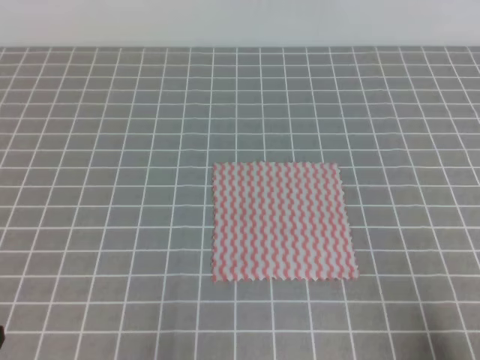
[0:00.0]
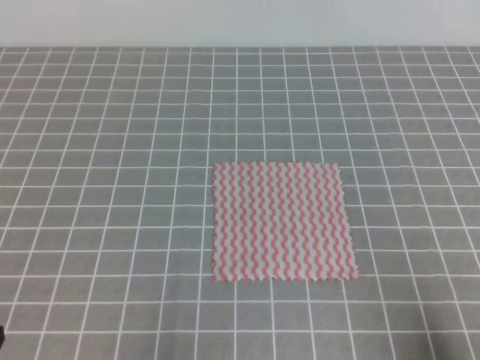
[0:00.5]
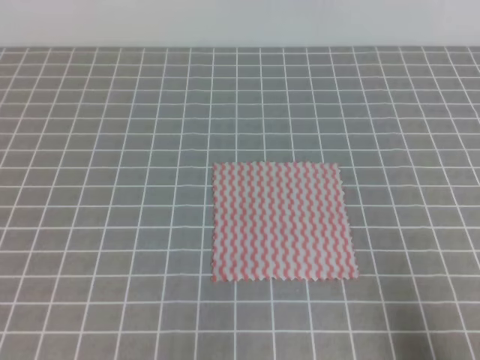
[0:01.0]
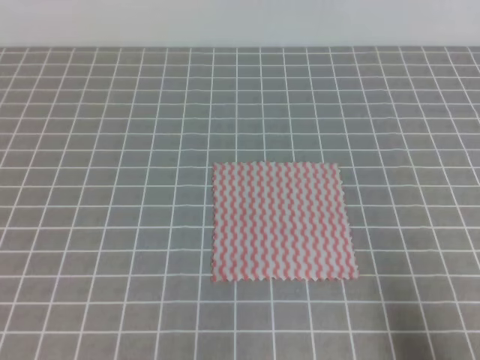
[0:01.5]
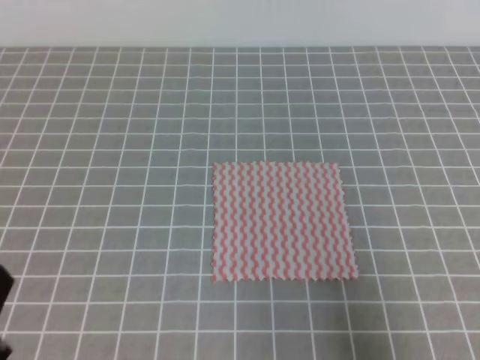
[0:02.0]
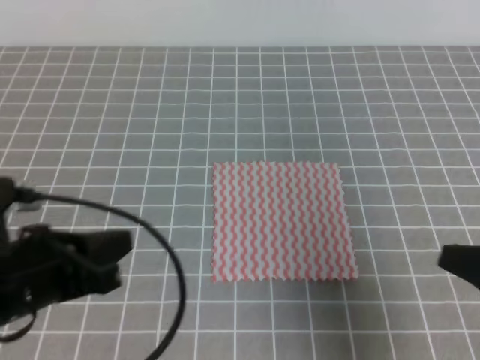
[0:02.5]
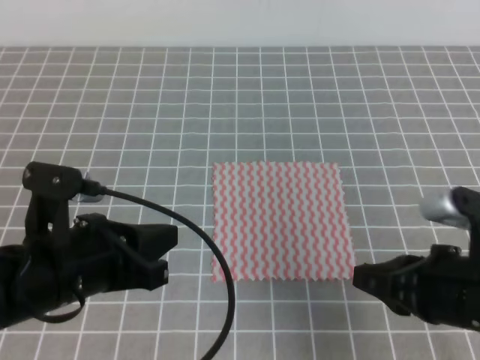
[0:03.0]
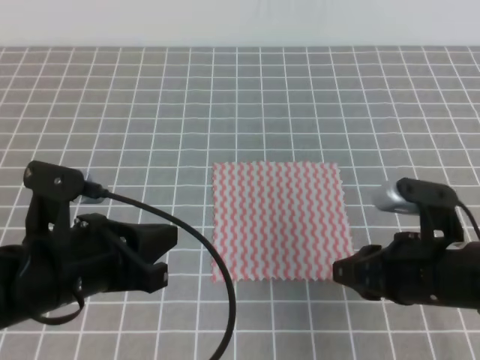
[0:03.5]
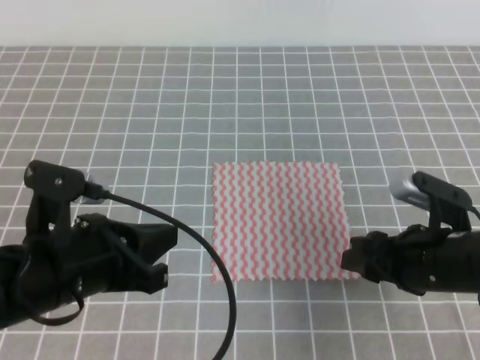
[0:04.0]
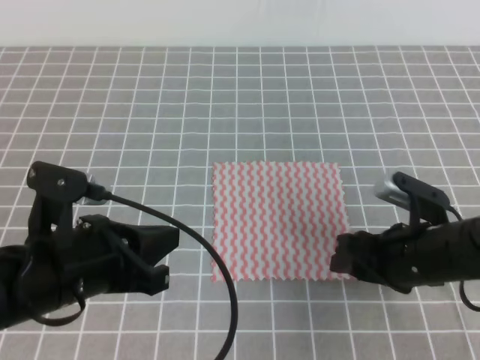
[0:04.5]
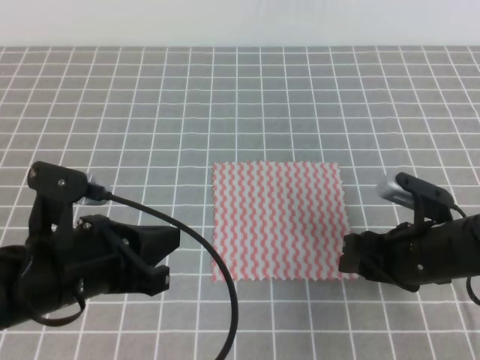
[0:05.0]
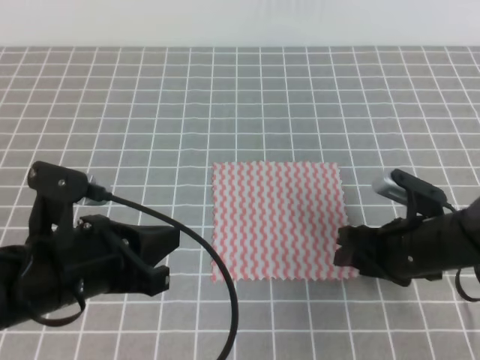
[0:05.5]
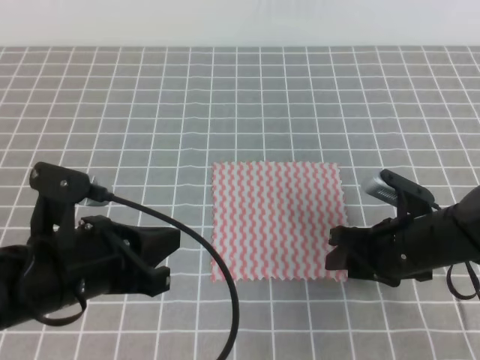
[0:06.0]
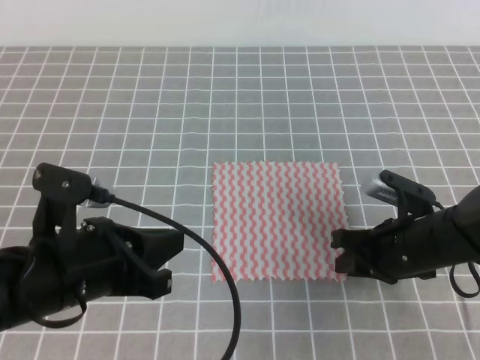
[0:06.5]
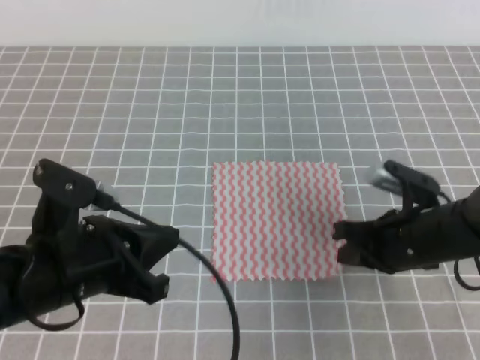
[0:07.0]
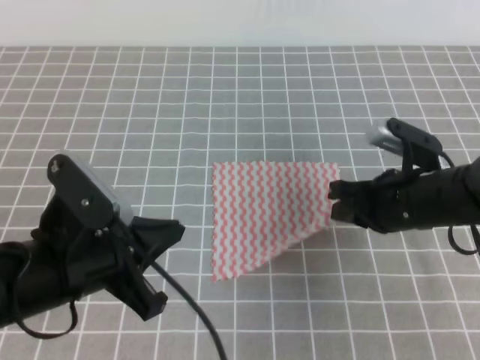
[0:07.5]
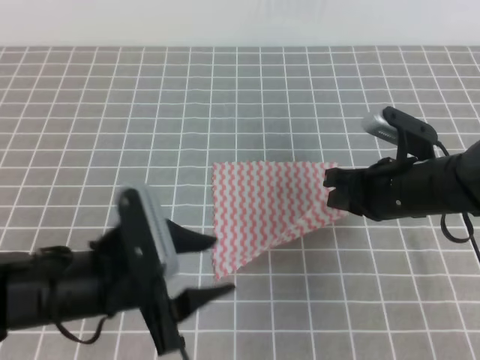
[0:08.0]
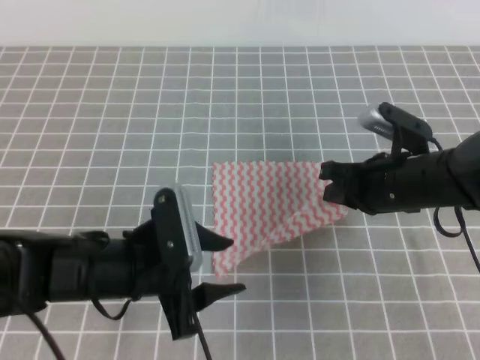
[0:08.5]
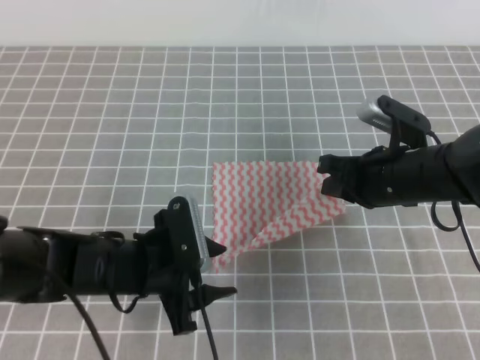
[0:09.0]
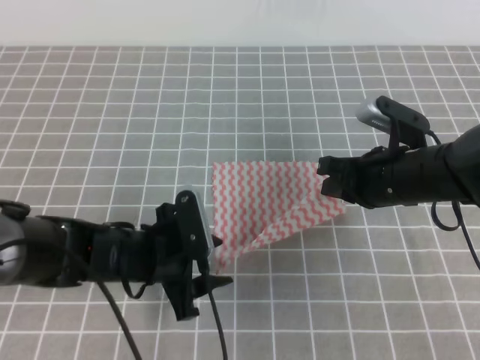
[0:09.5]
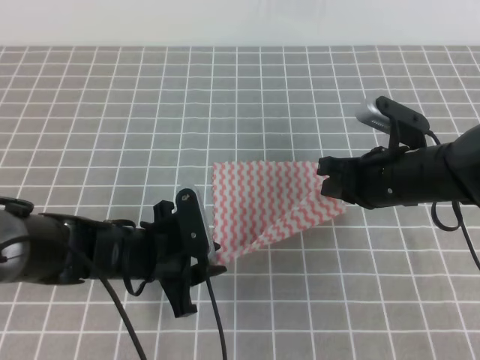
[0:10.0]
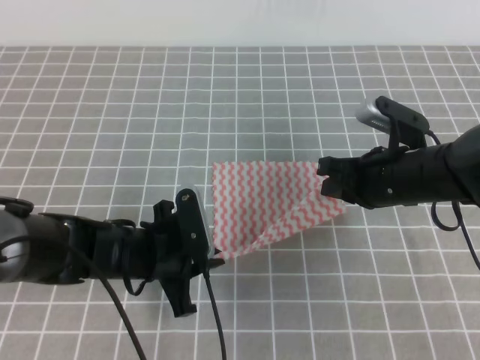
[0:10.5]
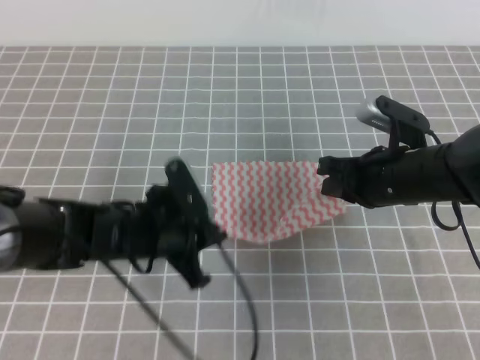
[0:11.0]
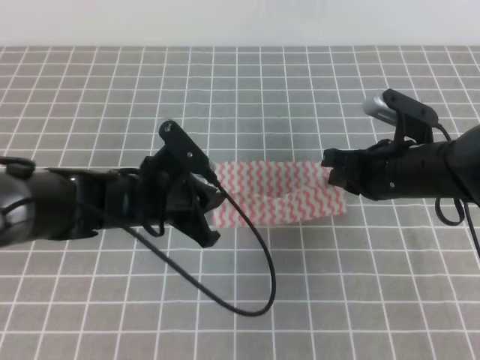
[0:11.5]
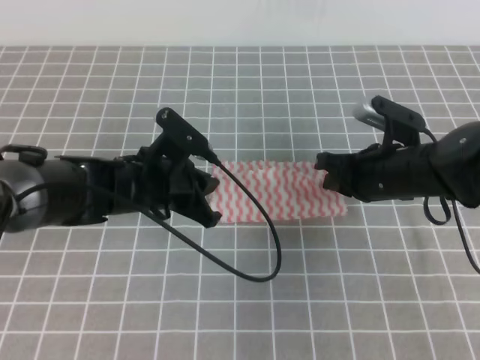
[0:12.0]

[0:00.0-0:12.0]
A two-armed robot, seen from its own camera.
0:00.0 to 0:02.0: The grippers both shift upward by roughly 5 cm.
0:02.0 to 0:04.0: The right gripper is displaced forward, to the left and downward by about 20 cm, and opens its fingers, while the left gripper shifts some 15 cm forward and to the right.
0:04.0 to 0:06.0: The right gripper ends up some 5 cm from where it was.
0:06.0 to 0:08.0: The left gripper opens, while the right gripper moves upward, roughly 5 cm, and closes up.
0:08.0 to 0:10.0: The left gripper is displaced forward and downward by about 10 cm, and closes its fingers.
0:10.0 to 0:12.0: The left gripper heads forward, covering approximately 5 cm, and closes its fingers.

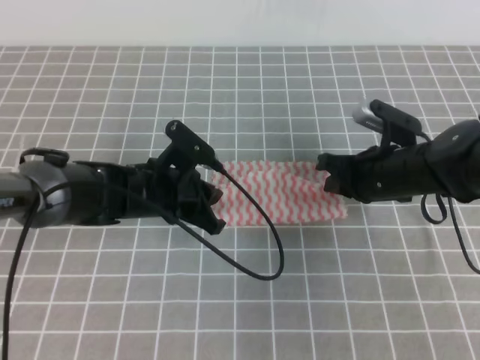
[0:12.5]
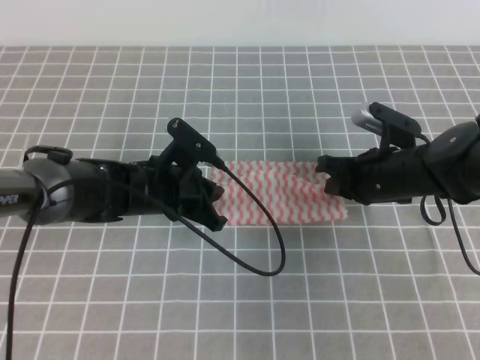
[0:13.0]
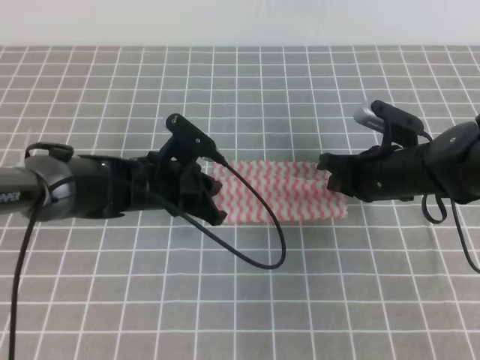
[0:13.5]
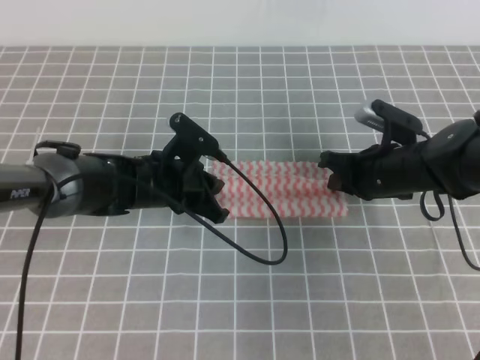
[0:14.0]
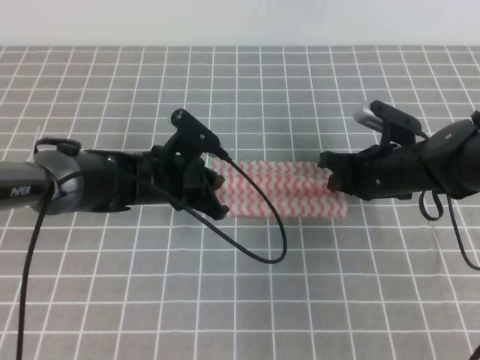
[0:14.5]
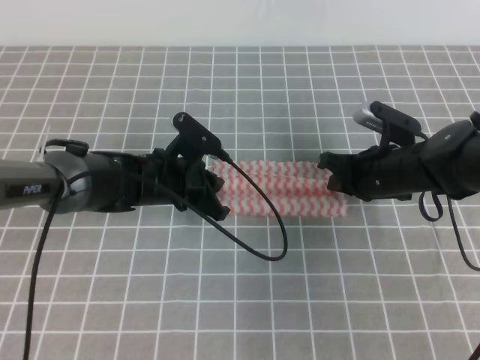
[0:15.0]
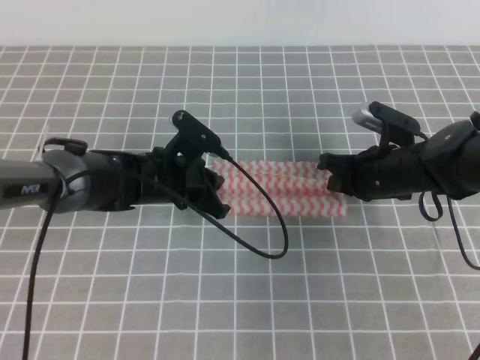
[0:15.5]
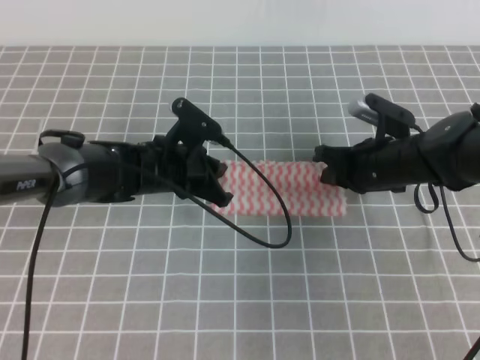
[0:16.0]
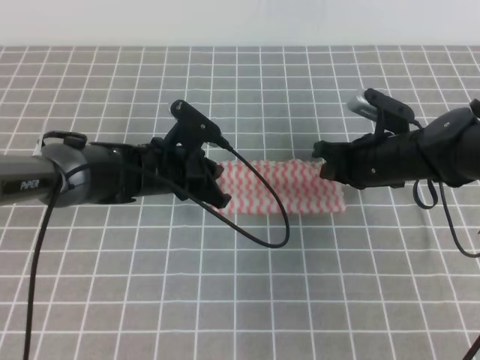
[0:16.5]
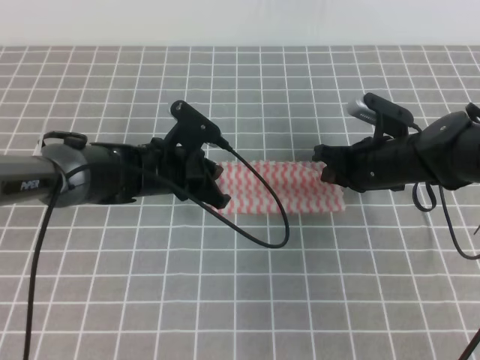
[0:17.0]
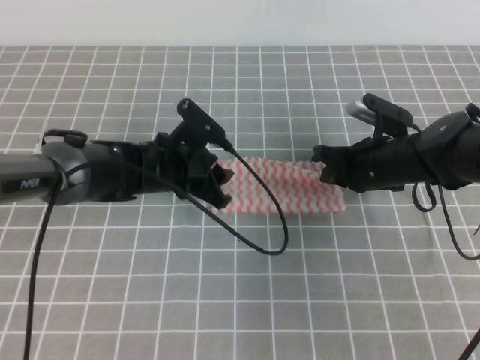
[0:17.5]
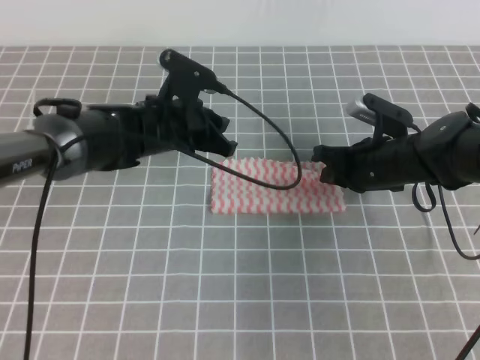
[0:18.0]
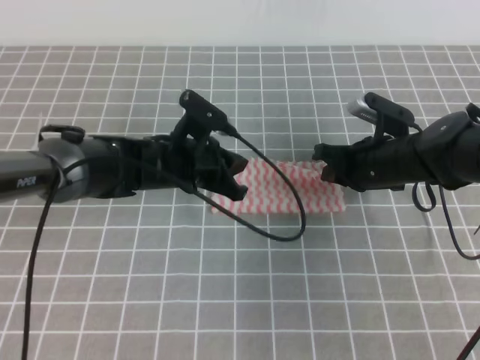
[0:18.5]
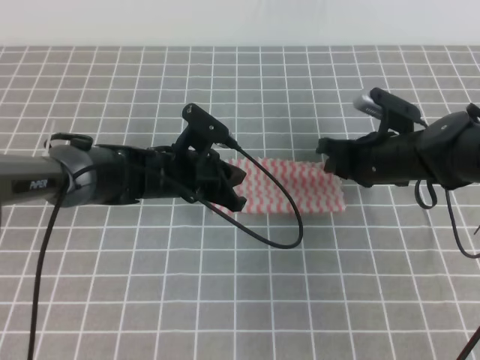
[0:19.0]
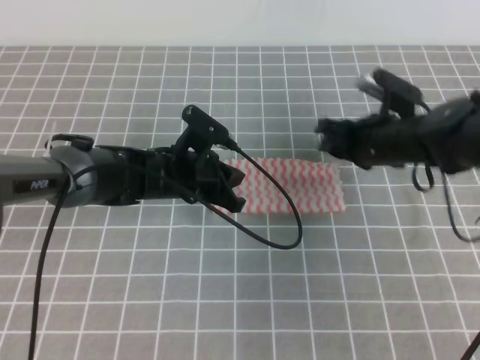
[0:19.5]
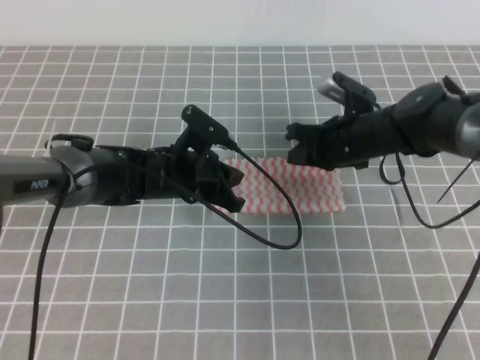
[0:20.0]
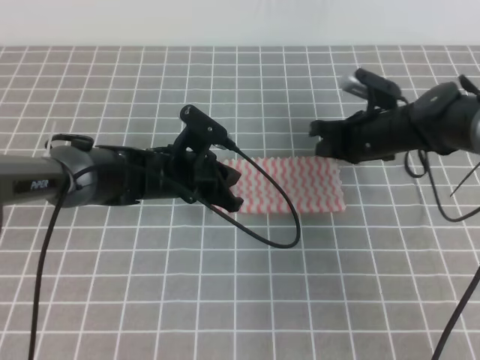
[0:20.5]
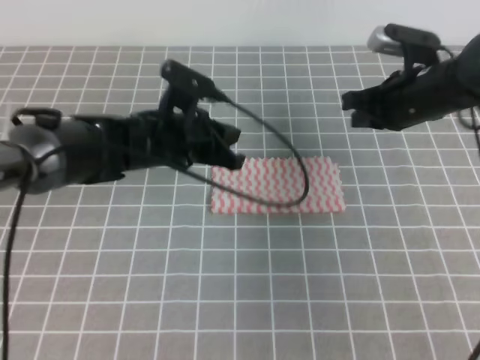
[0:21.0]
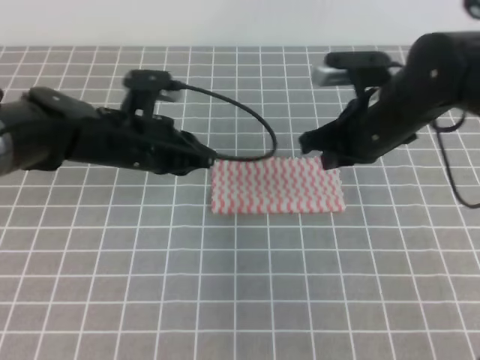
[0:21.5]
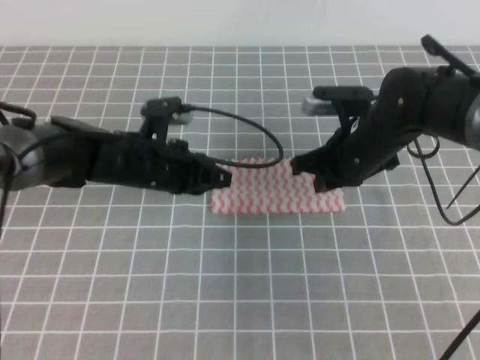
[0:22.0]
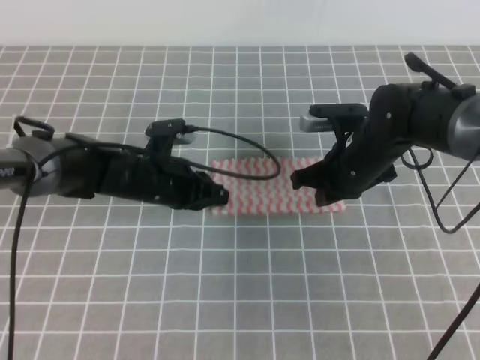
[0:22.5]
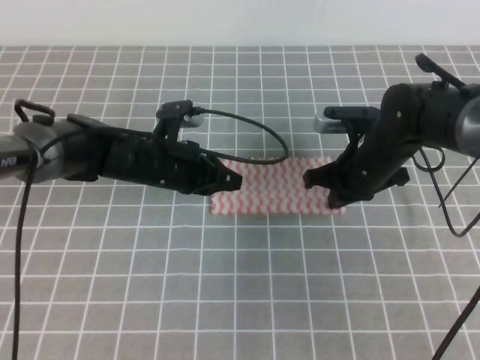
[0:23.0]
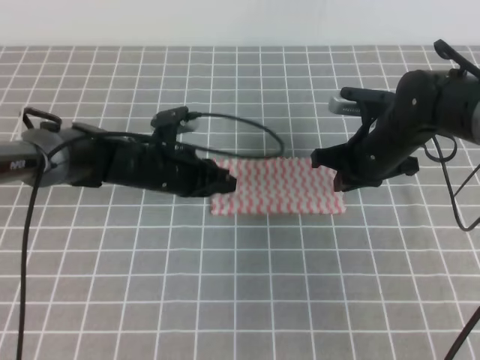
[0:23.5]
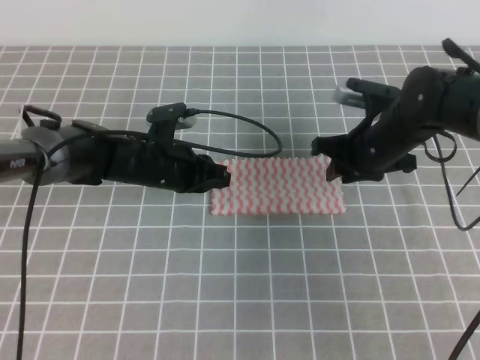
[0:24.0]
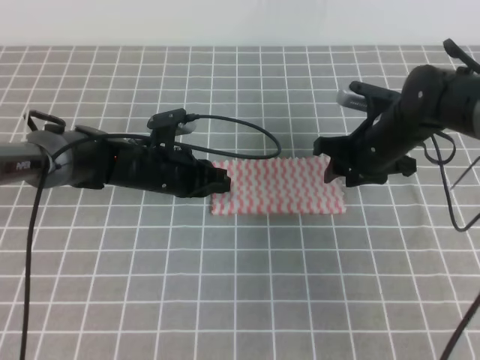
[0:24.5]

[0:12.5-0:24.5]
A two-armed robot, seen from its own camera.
0:12.5 to 0:14.5: The grippers stay close to where they were, moving slightly.
0:14.5 to 0:16.5: Neither gripper changes place.
0:16.5 to 0:18.5: The left gripper opens, then closes again.
0:18.5 to 0:20.5: The right gripper shifts approximately 5 cm forward, and opens, then closes once more.
0:20.5 to 0:22.5: The right gripper is displaced backward by about 5 cm, and reaches about 10 cm upward, then returns.
0:22.5 to 0:24.5: The right gripper opens its fingers.

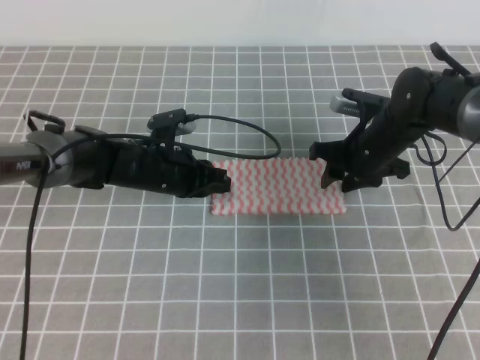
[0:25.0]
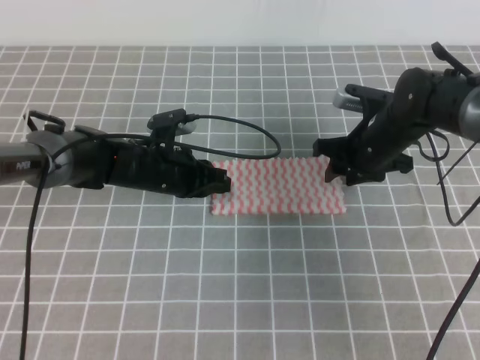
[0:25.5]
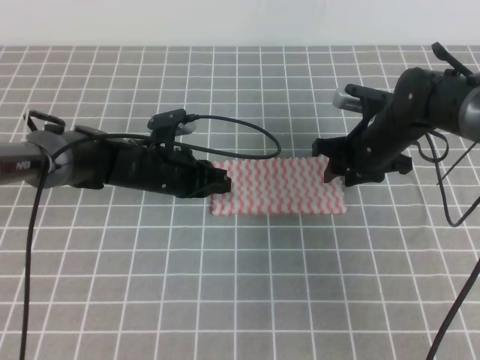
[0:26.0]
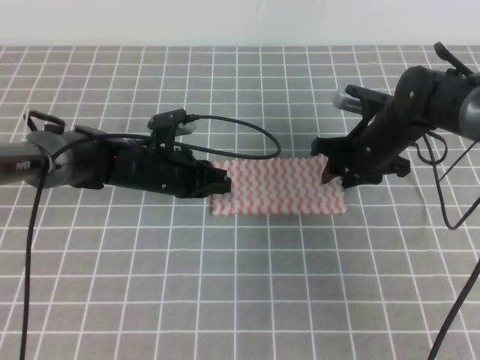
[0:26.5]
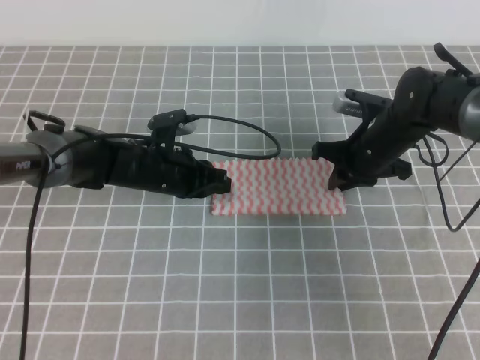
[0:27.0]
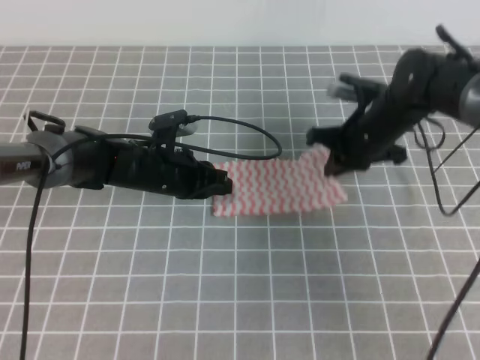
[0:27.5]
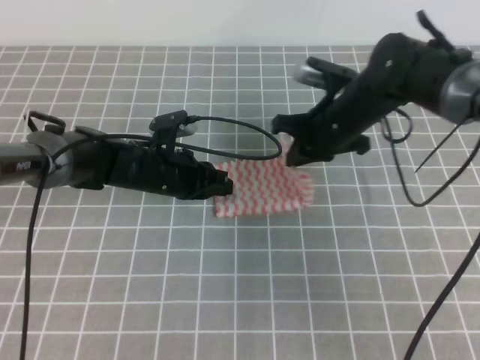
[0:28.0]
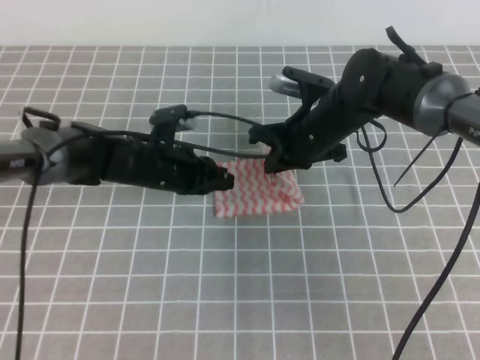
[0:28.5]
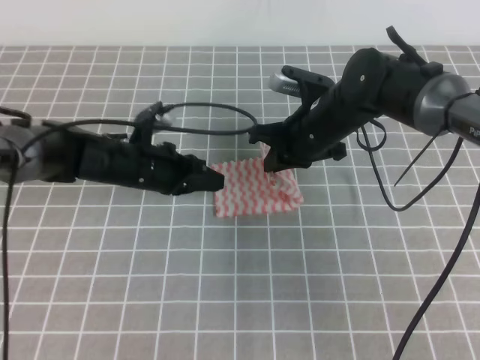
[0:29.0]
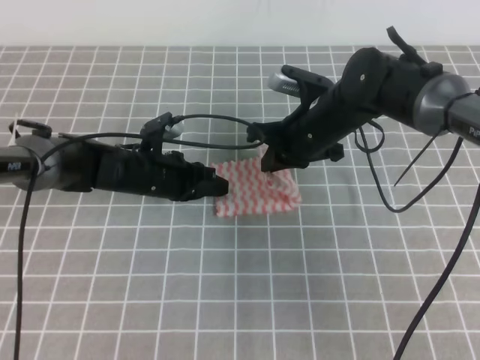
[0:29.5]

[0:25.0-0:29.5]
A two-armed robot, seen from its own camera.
0:25.0 to 0:27.0: The right gripper closes.
0:27.0 to 0:29.5: The right gripper is displaced to the left by some 10 cm.
